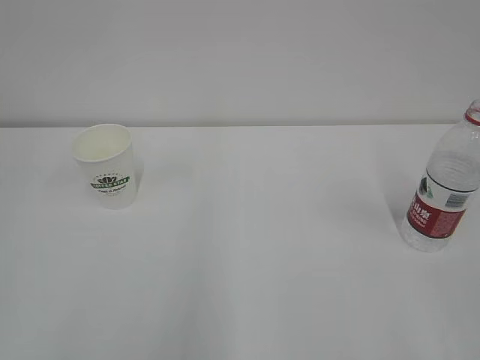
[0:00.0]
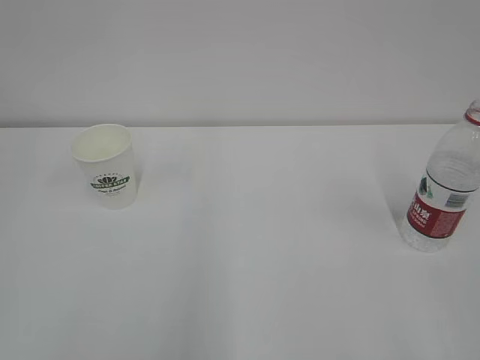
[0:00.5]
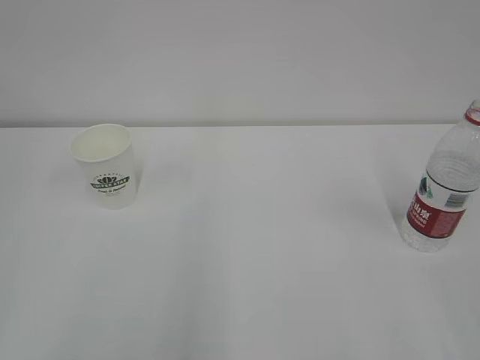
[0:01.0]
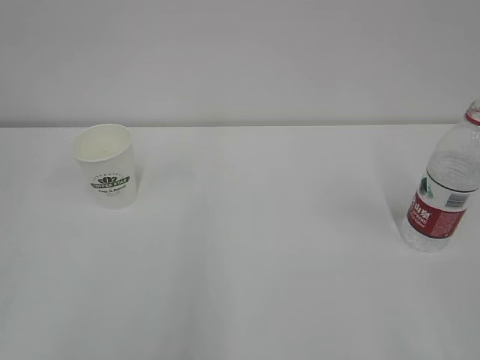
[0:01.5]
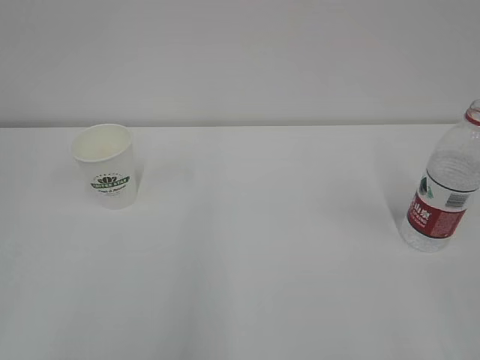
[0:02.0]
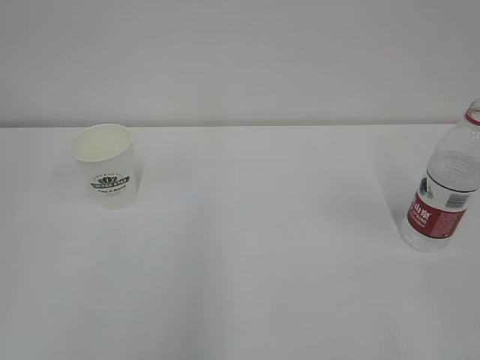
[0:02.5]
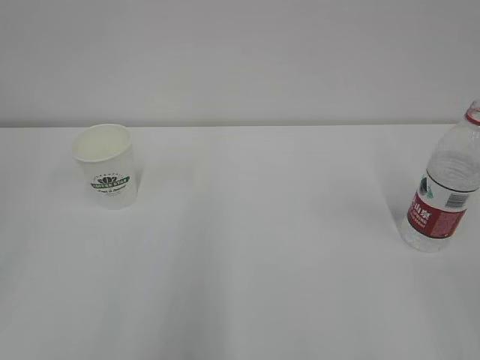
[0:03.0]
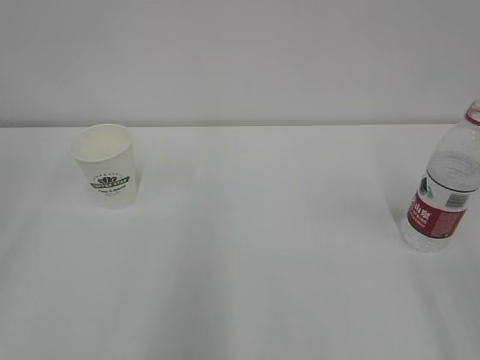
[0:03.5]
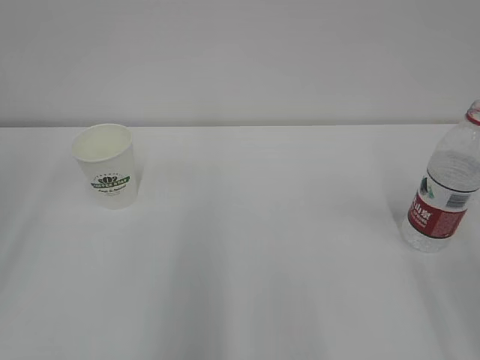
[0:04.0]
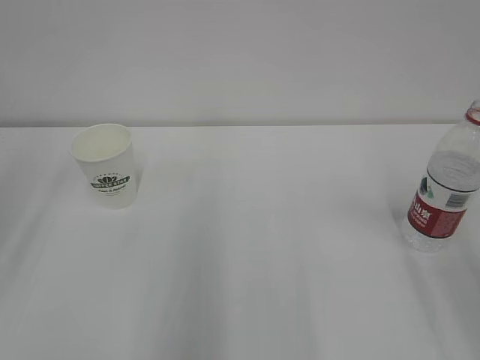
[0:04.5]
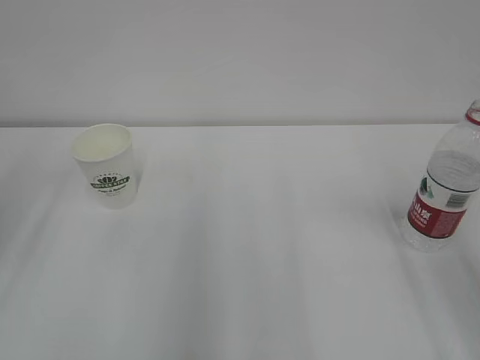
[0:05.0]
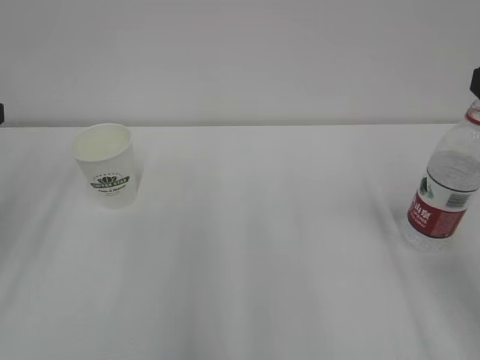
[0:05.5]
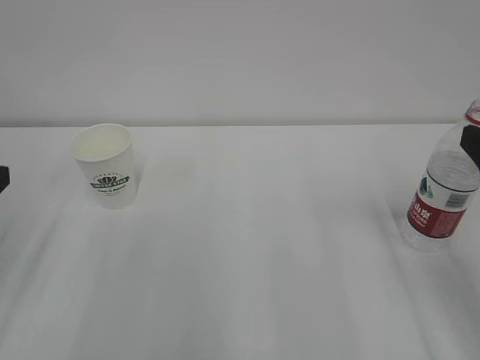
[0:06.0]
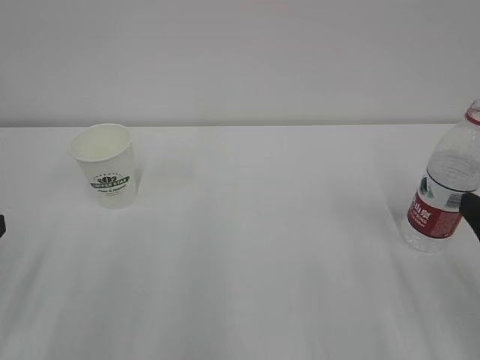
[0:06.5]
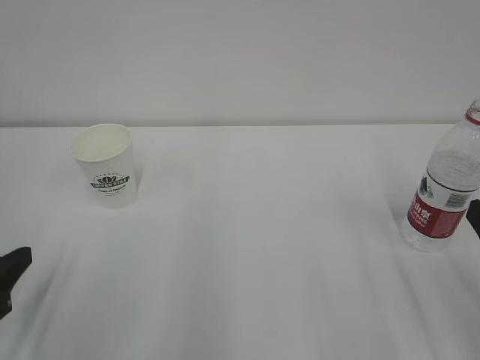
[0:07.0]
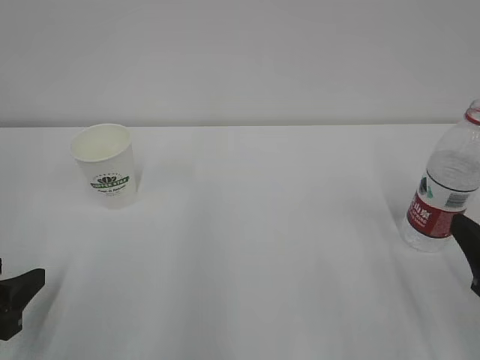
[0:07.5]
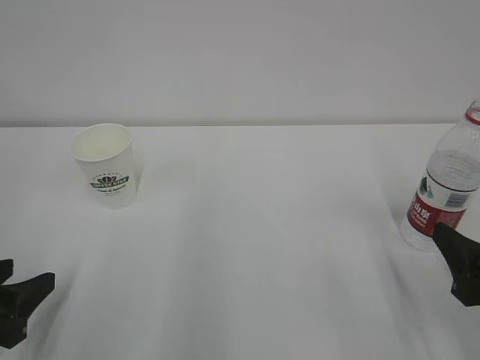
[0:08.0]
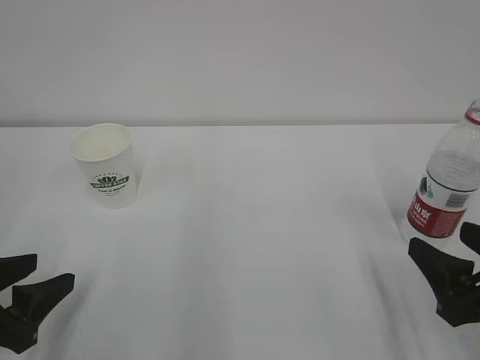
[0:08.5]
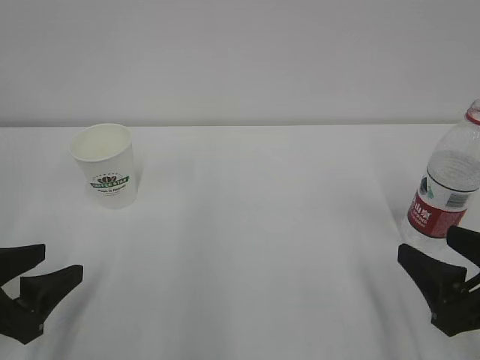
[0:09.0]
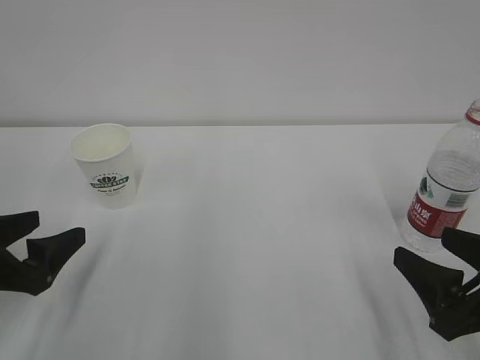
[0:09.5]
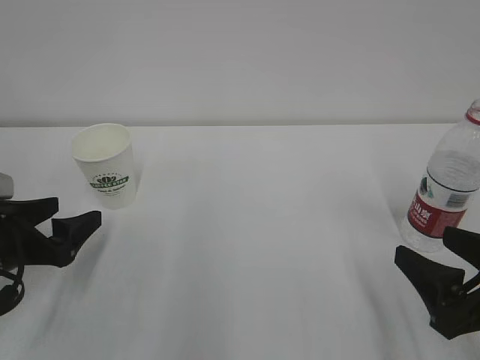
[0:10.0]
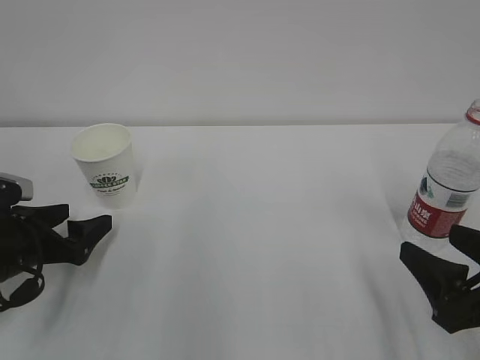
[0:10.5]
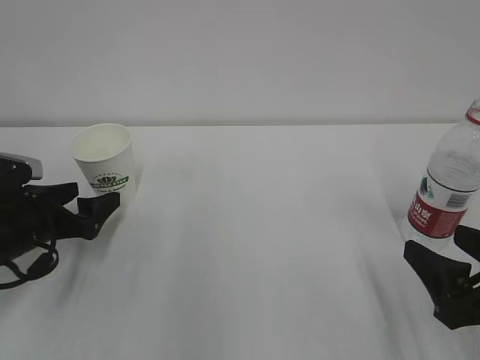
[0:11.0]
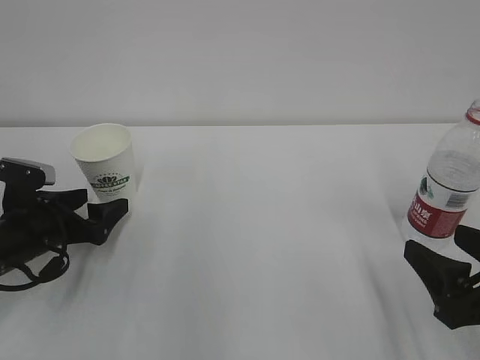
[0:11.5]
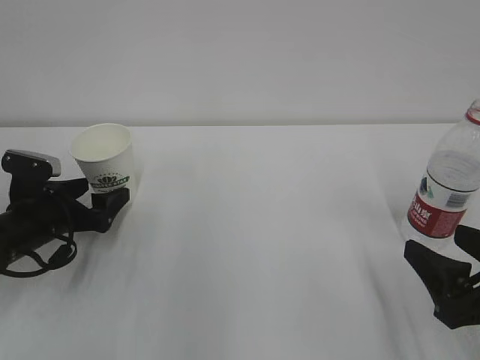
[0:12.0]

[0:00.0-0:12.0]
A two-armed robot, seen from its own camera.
0:06.0 to 0:08.0: Both grippers move downward, approximately 10 cm.
0:08.0 to 0:10.0: The left gripper shifts about 10 cm forward, and opens up.
0:10.0 to 0:12.0: The left gripper heads forward, covering approximately 10 cm.

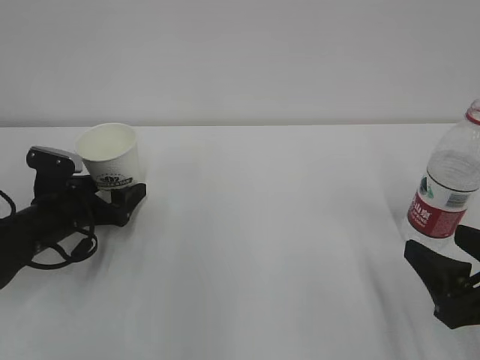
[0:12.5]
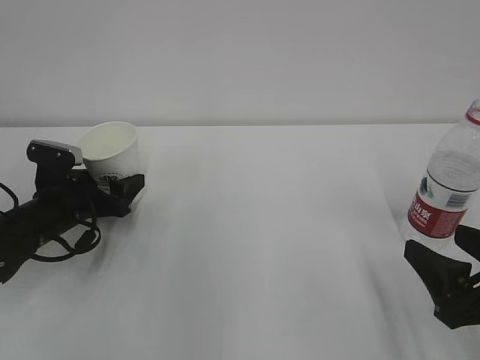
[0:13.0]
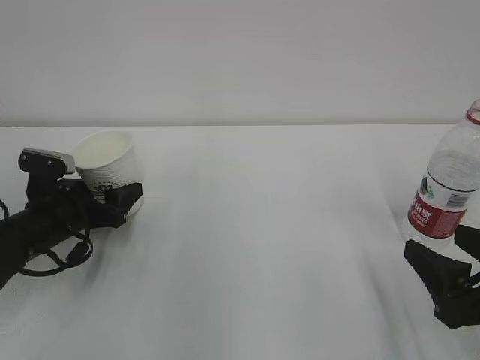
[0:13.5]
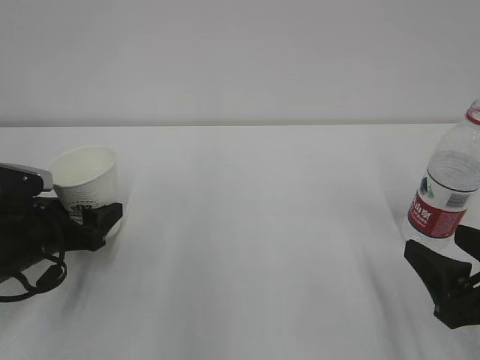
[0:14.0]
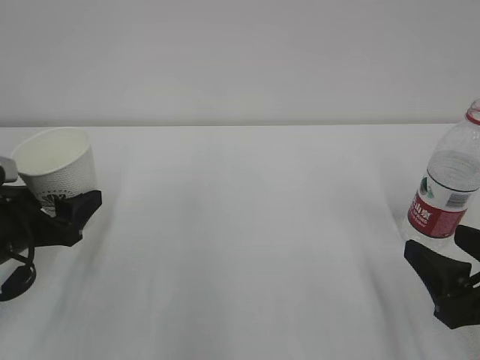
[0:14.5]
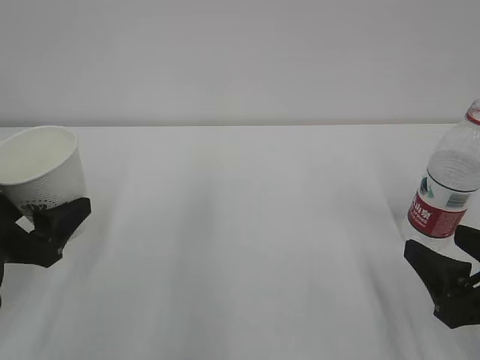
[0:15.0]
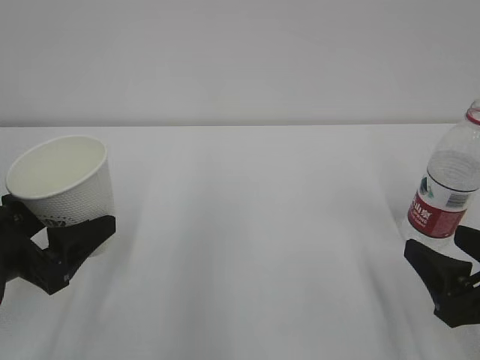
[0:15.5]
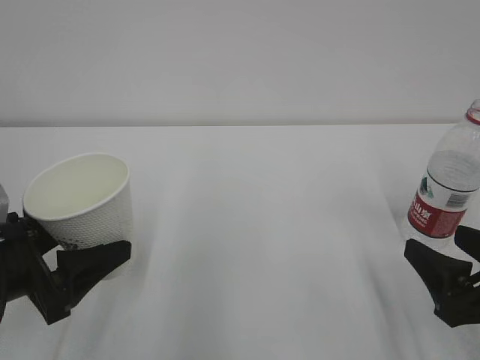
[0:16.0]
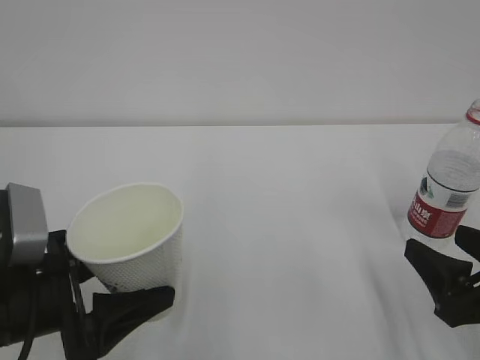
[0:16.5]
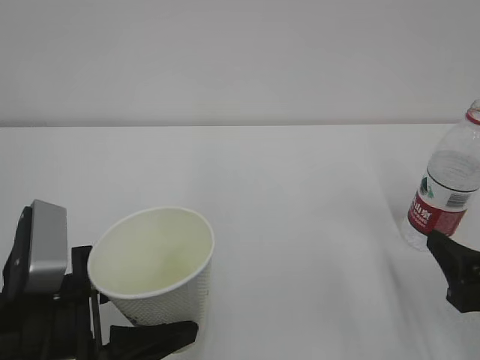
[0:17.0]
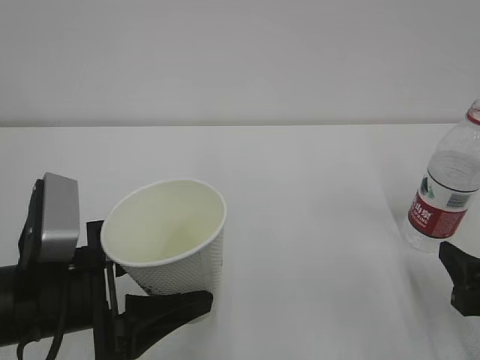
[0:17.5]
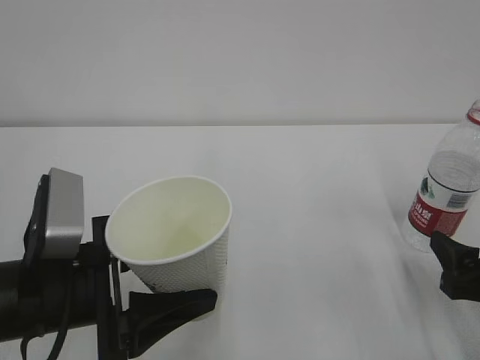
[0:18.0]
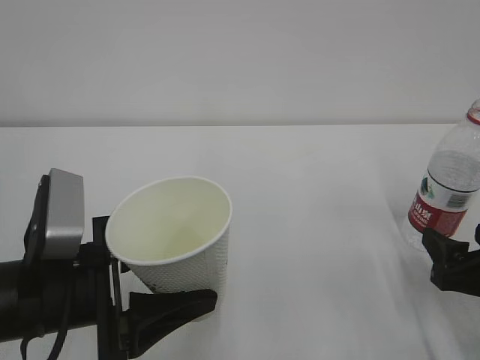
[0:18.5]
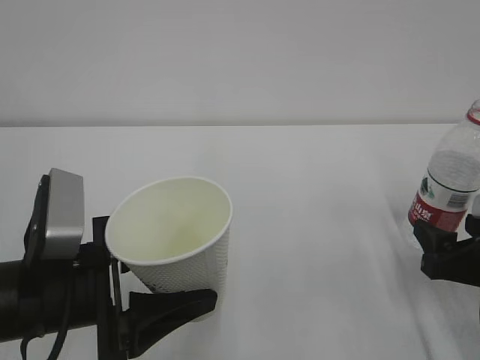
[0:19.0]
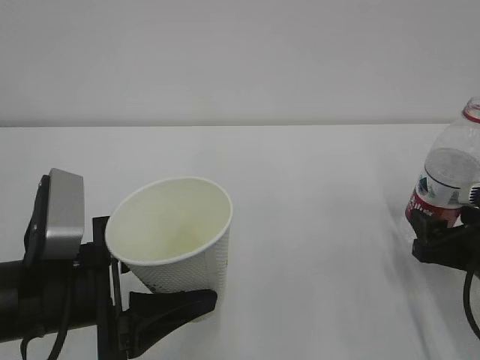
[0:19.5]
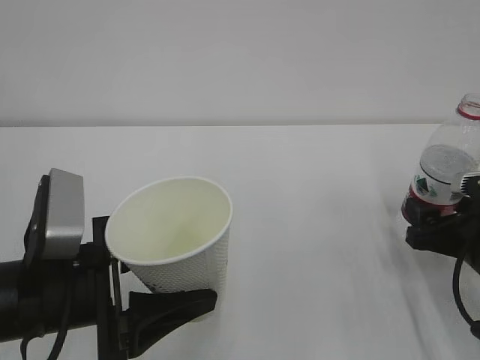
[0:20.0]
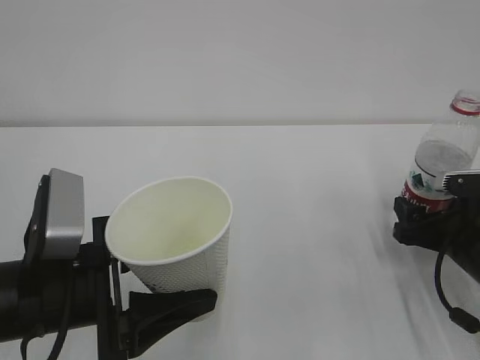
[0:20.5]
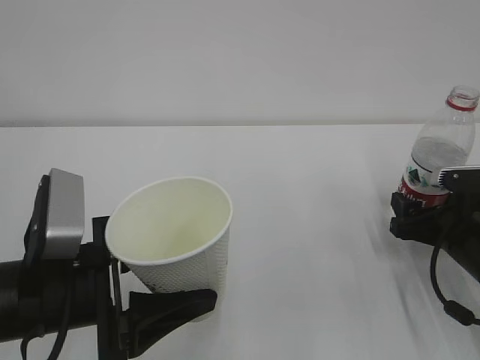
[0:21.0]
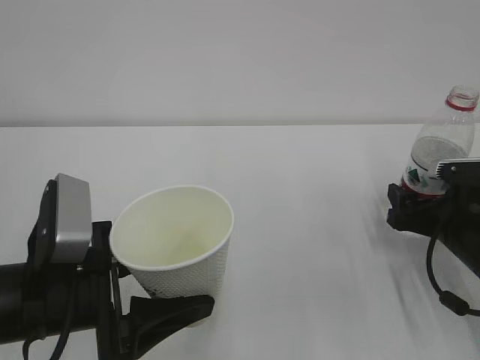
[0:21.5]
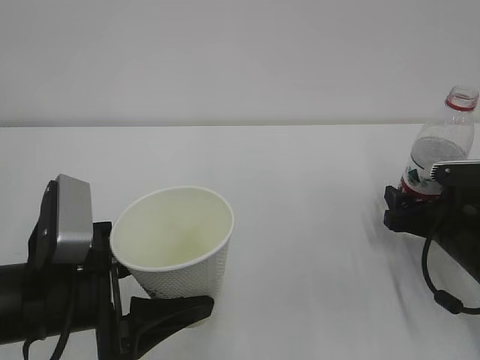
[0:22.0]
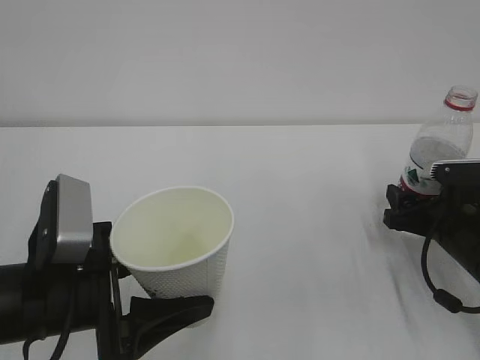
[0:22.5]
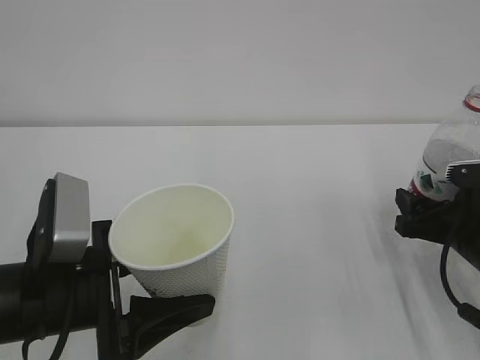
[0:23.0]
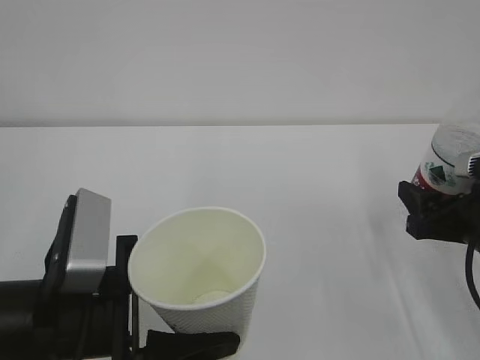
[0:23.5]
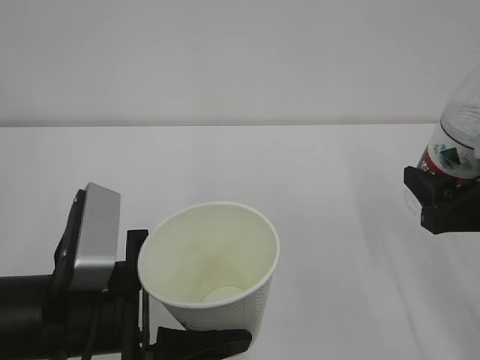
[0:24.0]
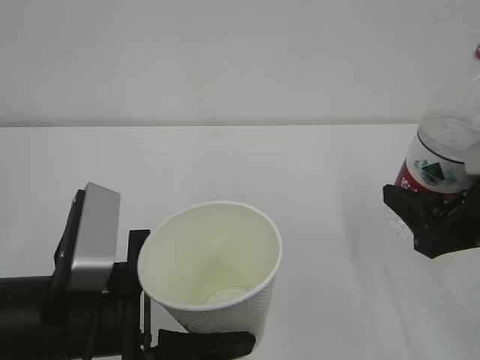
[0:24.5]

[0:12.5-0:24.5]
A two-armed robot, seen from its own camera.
0:12.5 to 0:14.5: The left gripper is displaced backward and upward by some 10 cm, and closes up.
0:14.5 to 0:16.5: The left gripper moves backward and to the right, roughly 10 cm.
0:16.5 to 0:18.5: There are only small adjustments of the grippers.
0:18.5 to 0:20.5: The right gripper goes roughly 10 cm forward.
0:20.5 to 0:22.5: There are only small adjustments of the grippers.
0:22.5 to 0:24.5: The right gripper moves upward and backward, approximately 15 cm.

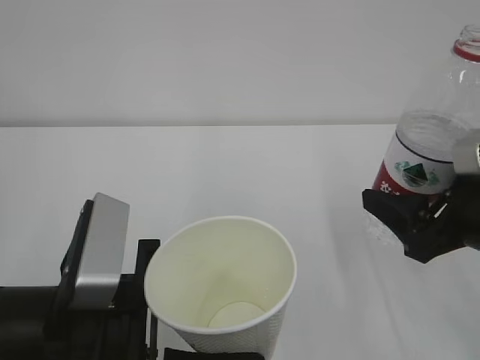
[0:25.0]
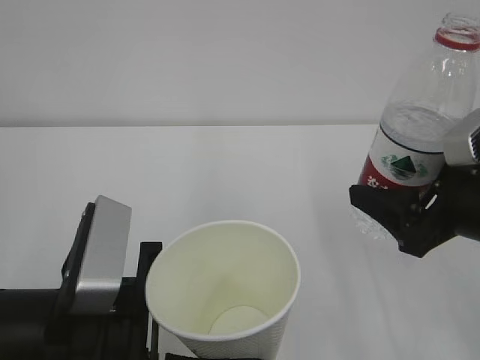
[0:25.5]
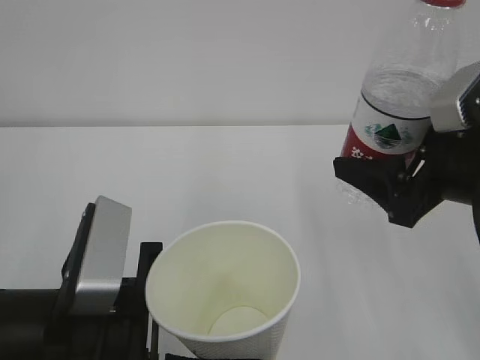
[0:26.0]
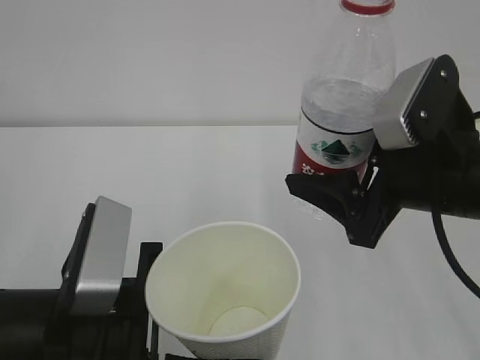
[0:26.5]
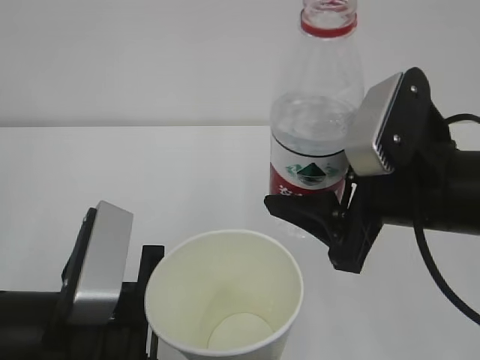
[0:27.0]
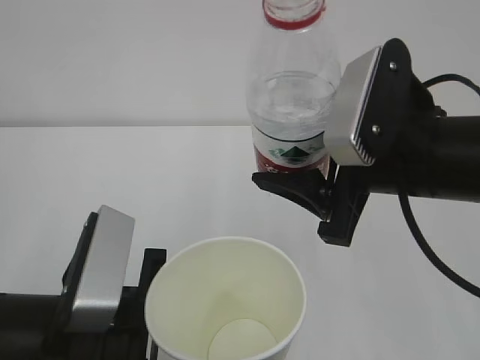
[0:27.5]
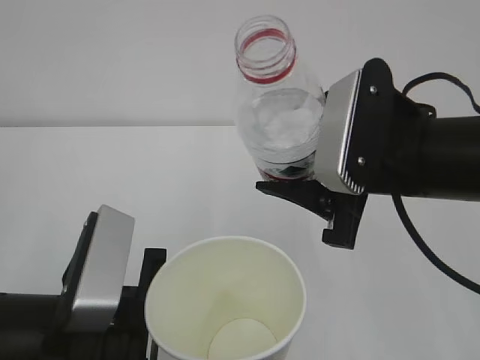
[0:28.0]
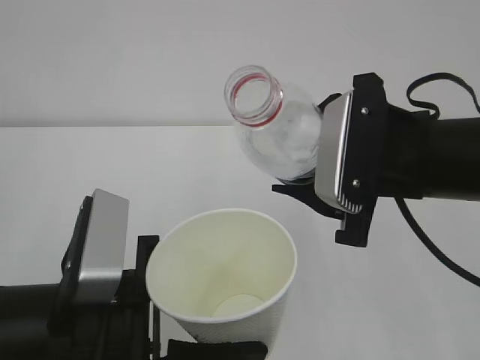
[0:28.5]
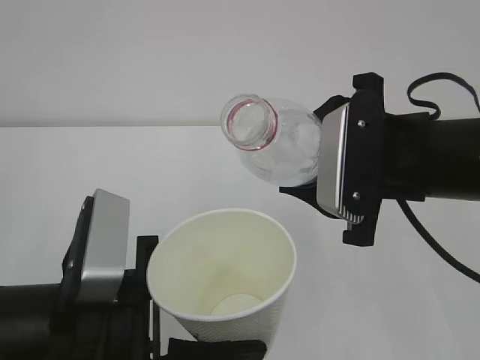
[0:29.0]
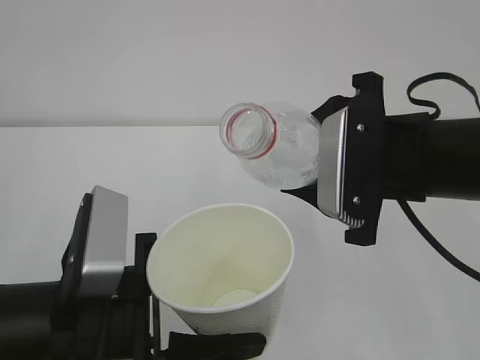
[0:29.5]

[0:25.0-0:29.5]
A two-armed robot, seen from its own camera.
0:25.0 to 0:27.0: The right gripper goes about 10 cm to the left.
